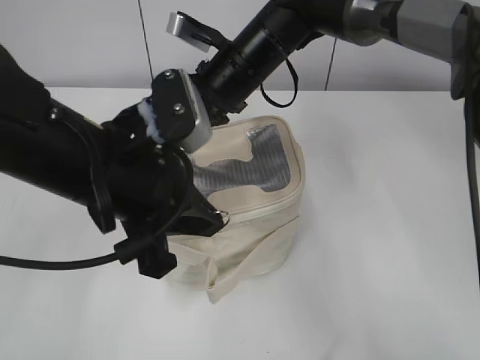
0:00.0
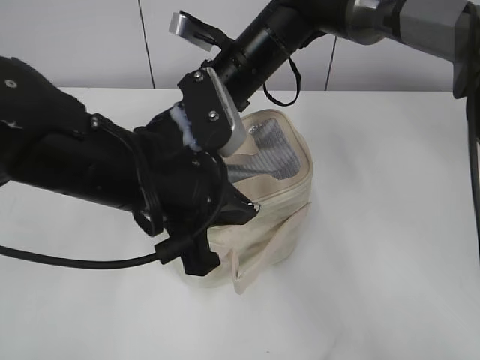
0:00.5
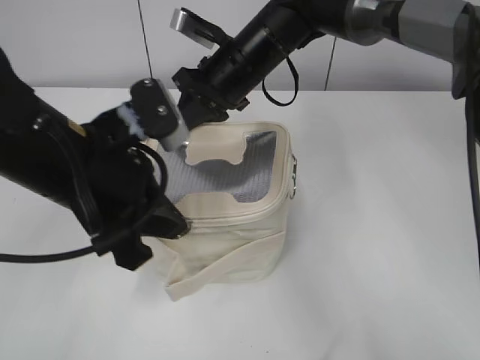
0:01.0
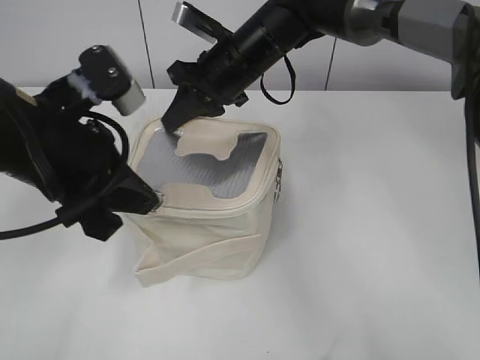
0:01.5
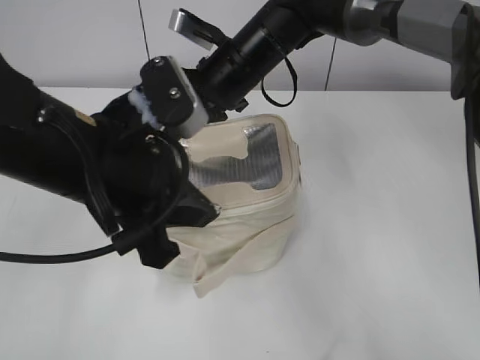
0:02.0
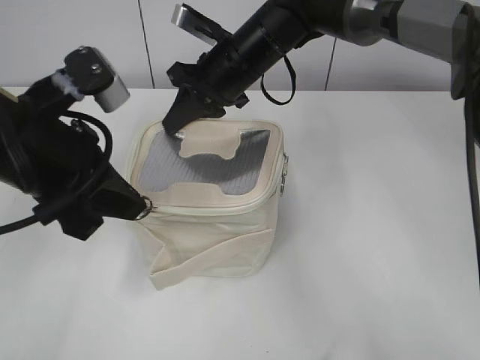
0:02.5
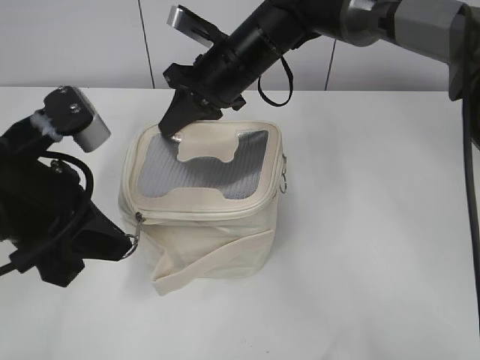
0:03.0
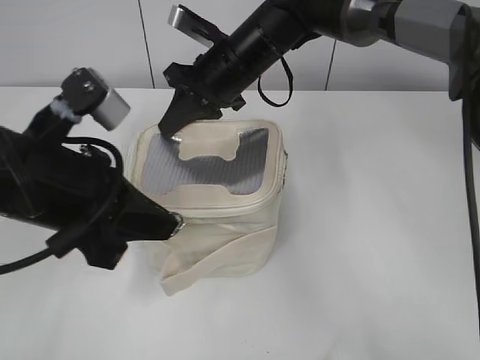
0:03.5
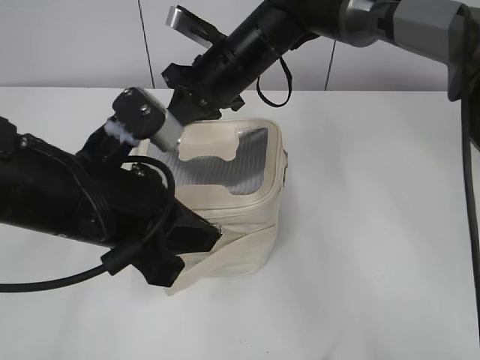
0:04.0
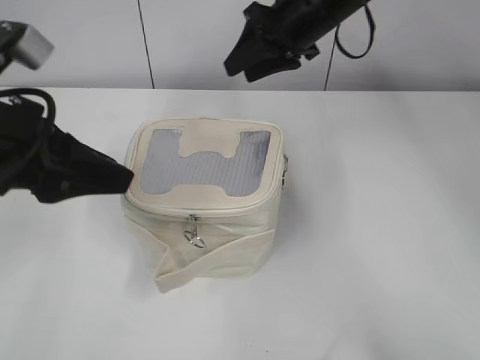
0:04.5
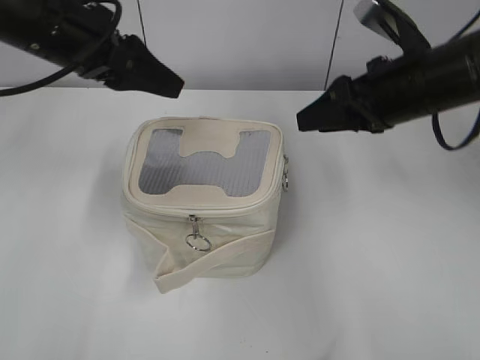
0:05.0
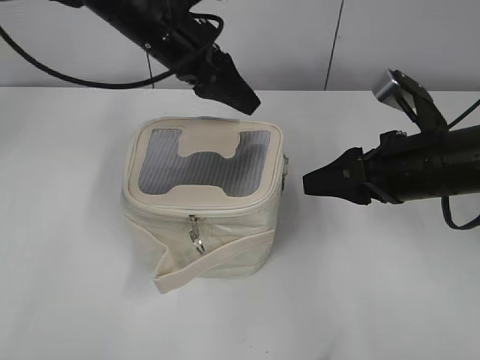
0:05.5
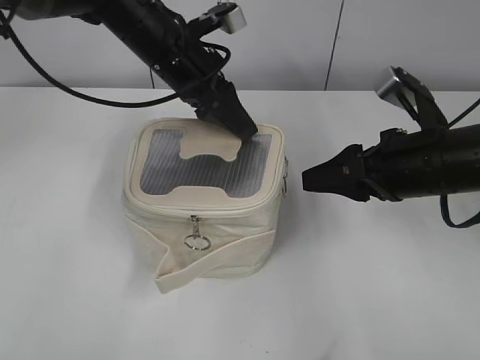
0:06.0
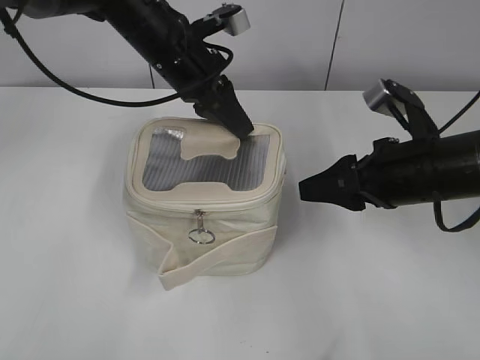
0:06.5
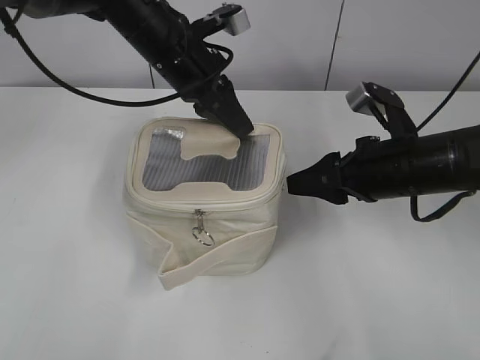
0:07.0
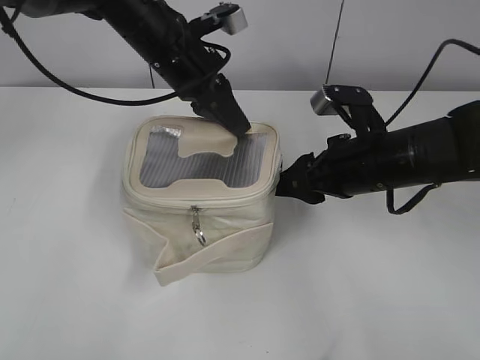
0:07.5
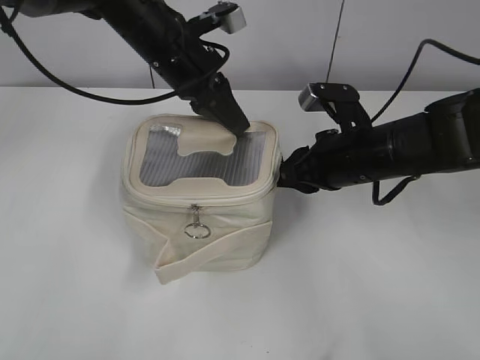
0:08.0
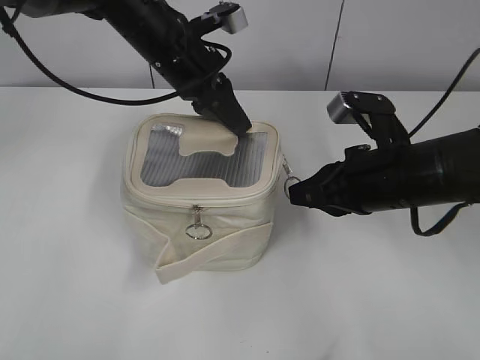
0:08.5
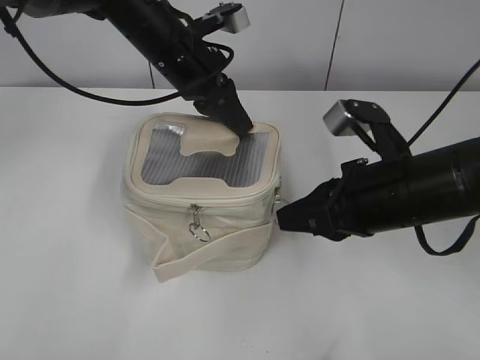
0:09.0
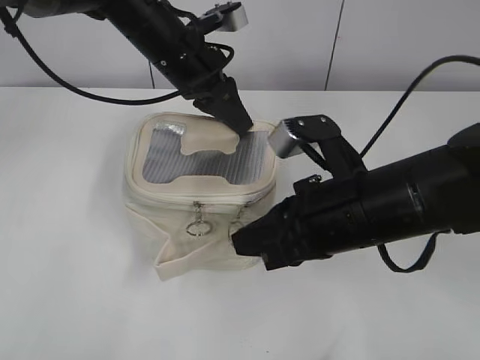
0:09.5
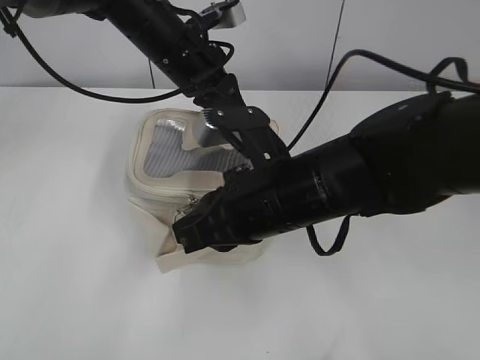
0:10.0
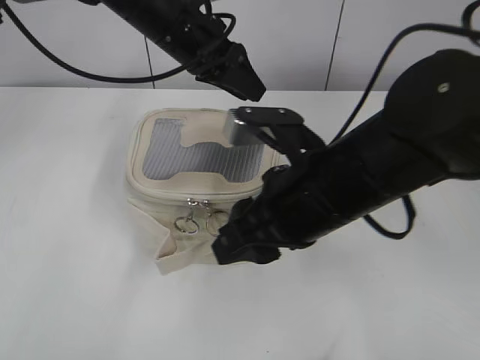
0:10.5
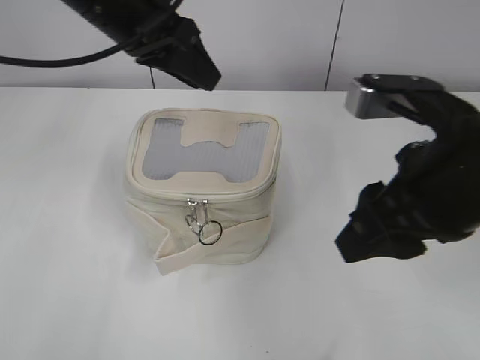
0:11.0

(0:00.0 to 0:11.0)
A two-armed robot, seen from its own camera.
Step, 0:00.0 - 0:04.0: Zip up the bag with your left hand.
Step, 0:04.5 - 0:10.0: Zip up the bag with your right hand.
0:00.0 - 0:02.0: The left gripper reaches roughly 5 cm to the left, then returns.
0:02.0 - 0:03.5: The left gripper goes some 5 cm to the left.
0:03.5 - 0:05.5: The left gripper travels forward by some 20 cm, and opens up. Meanwhile the right gripper shifts some 25 cm to the right and backward, and opens up.
0:05.5 - 0:07.5: The right gripper shifts by roughly 5 cm. Meanwhile the left gripper closes up.
0:07.5 - 0:09.0: The right gripper moves backward, some 5 cm, and closes its fingers.
0:09.0 - 0:11.0: The right gripper travels upward by some 10 cm, reaches roughly 10 cm to the left, then returns, and opens; the left gripper shifts roughly 10 cm upward and backward, and opens.

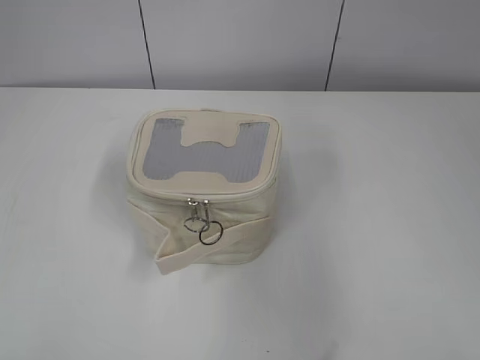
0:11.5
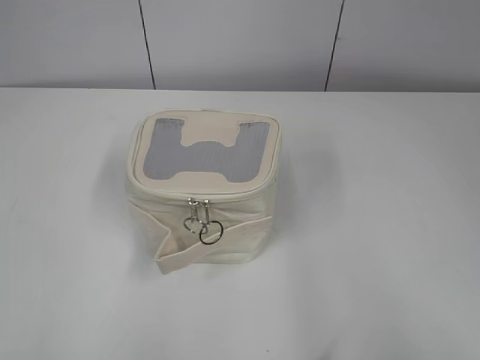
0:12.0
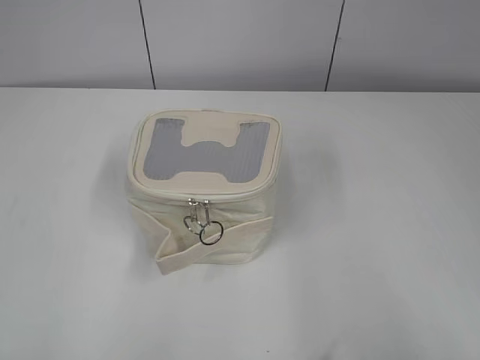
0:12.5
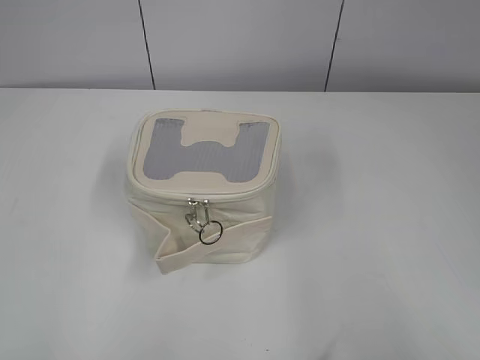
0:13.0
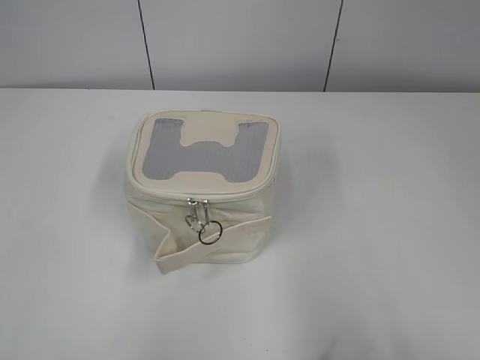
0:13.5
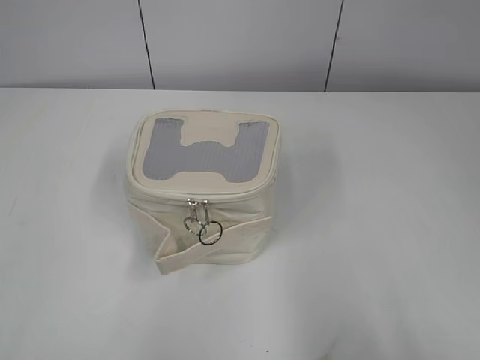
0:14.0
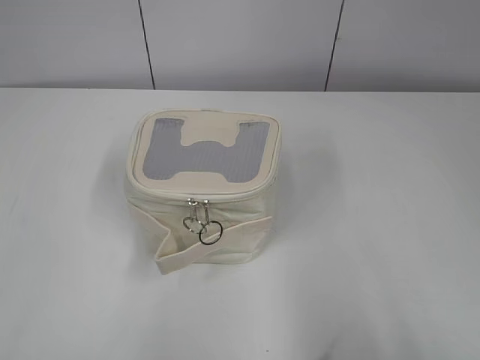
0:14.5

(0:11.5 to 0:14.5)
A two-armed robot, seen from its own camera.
0:11.5 - 0:13.0: The left gripper goes roughly 15 cm backward, to the left and downward; the right gripper shifts roughly 15 cm backward and to the right.
